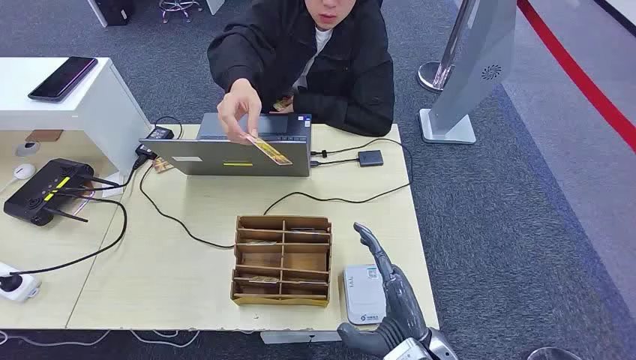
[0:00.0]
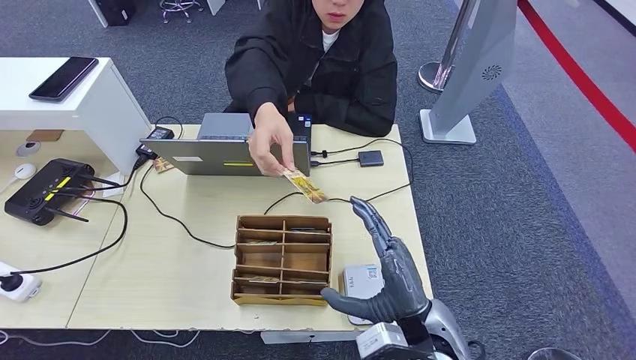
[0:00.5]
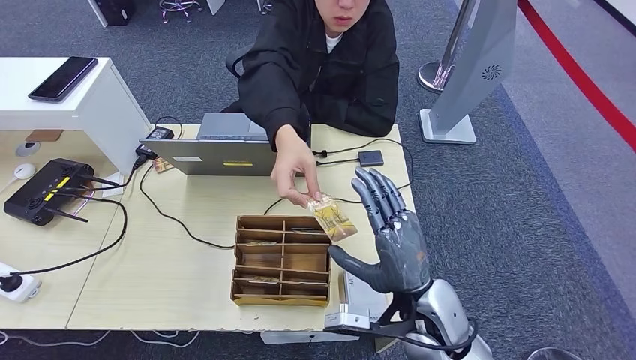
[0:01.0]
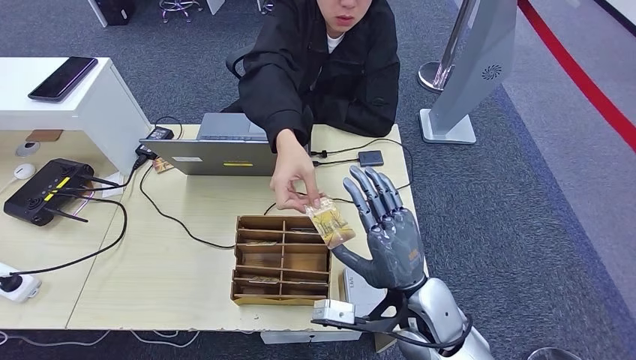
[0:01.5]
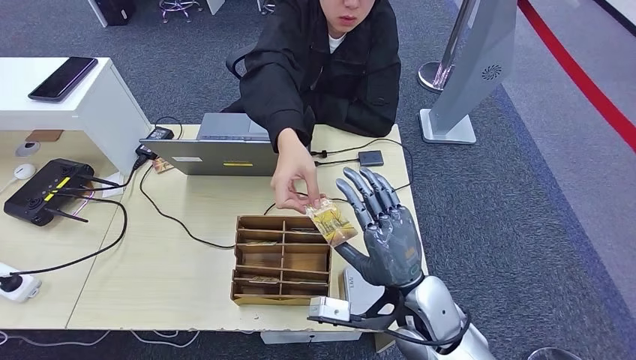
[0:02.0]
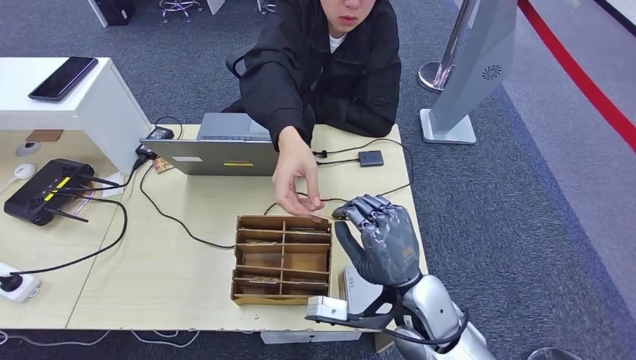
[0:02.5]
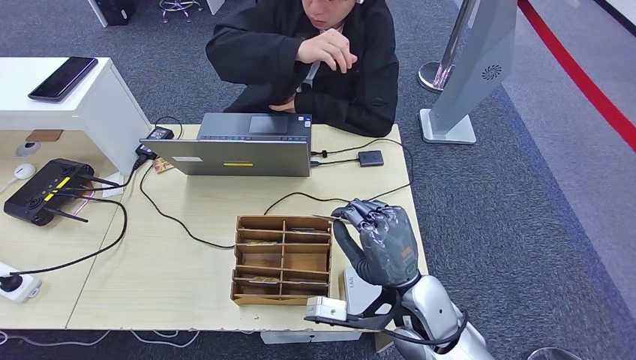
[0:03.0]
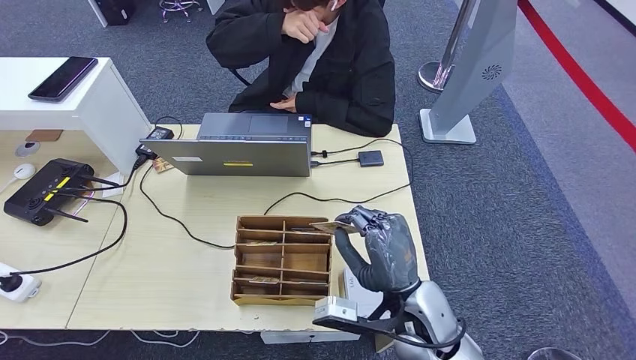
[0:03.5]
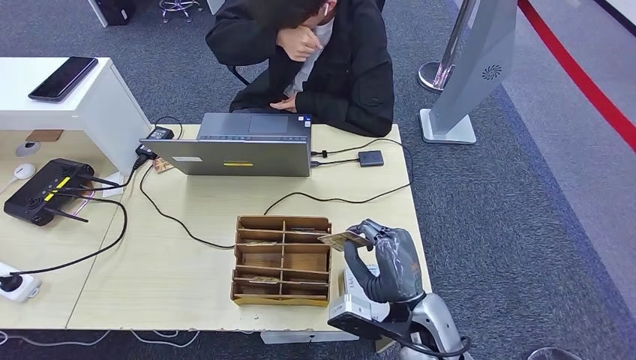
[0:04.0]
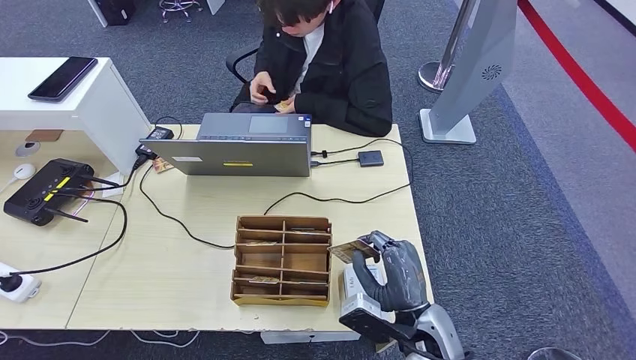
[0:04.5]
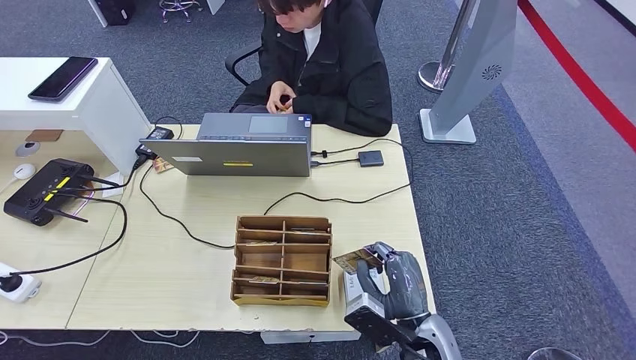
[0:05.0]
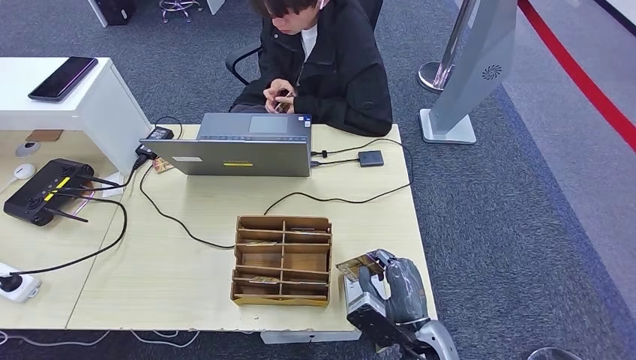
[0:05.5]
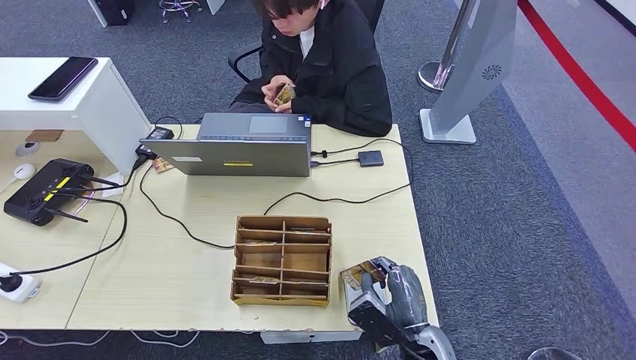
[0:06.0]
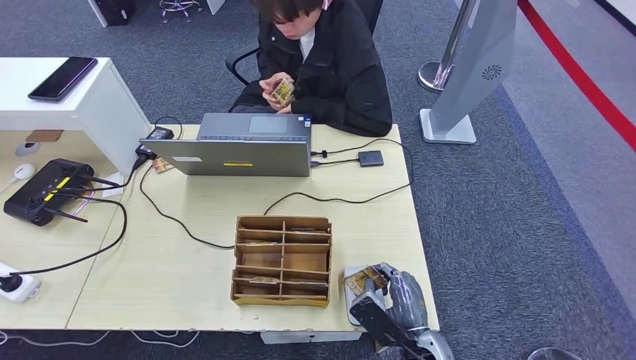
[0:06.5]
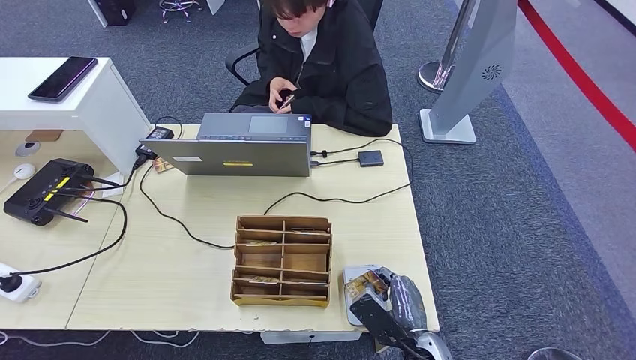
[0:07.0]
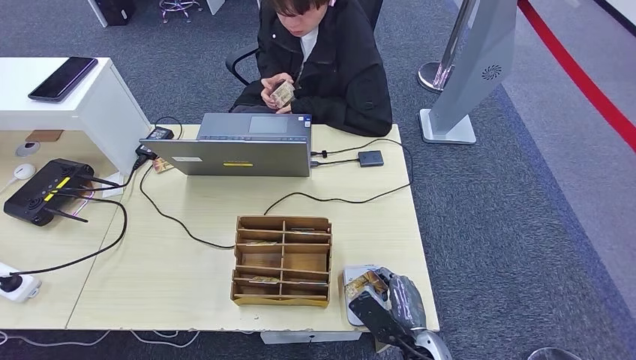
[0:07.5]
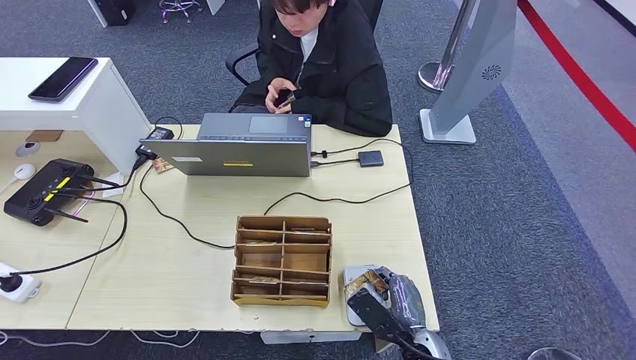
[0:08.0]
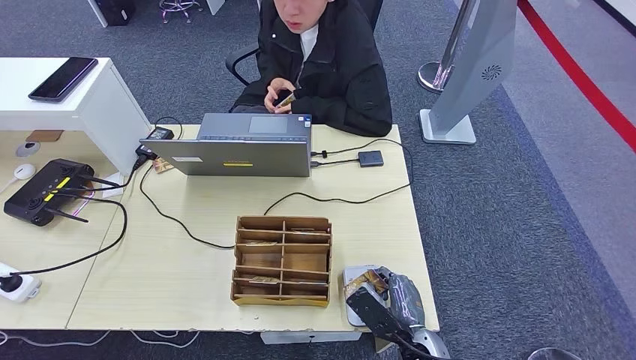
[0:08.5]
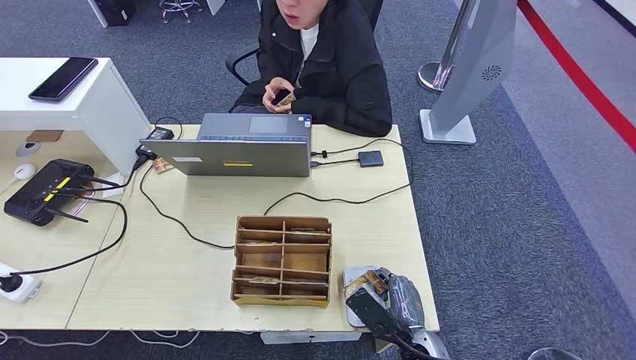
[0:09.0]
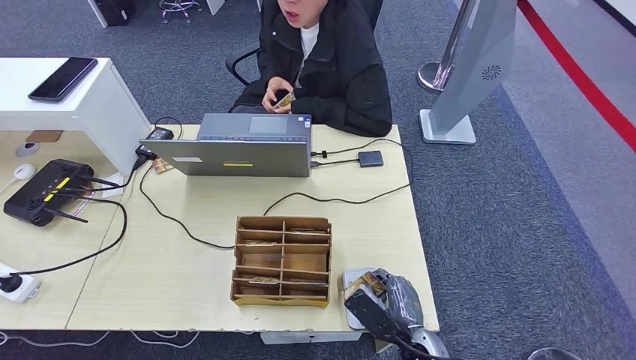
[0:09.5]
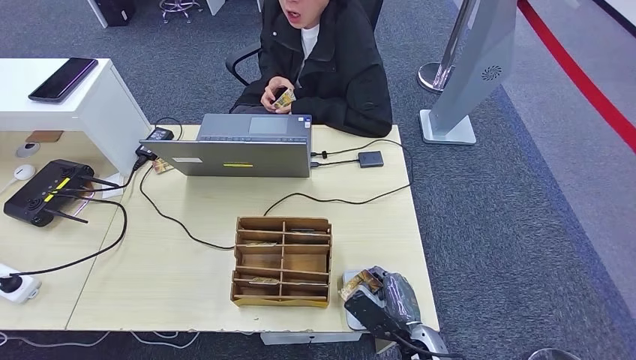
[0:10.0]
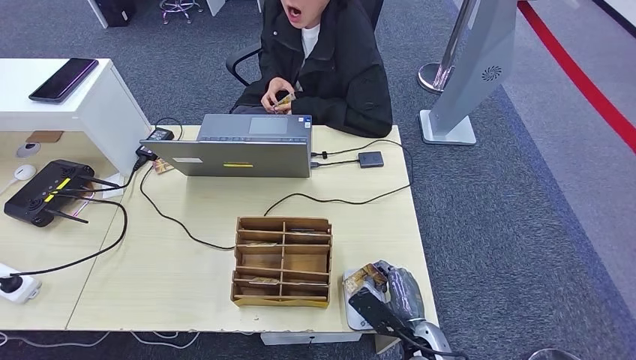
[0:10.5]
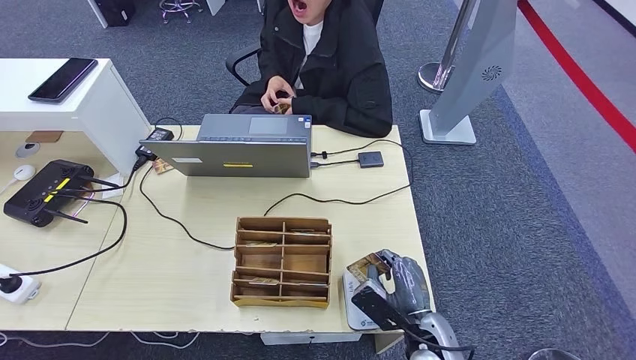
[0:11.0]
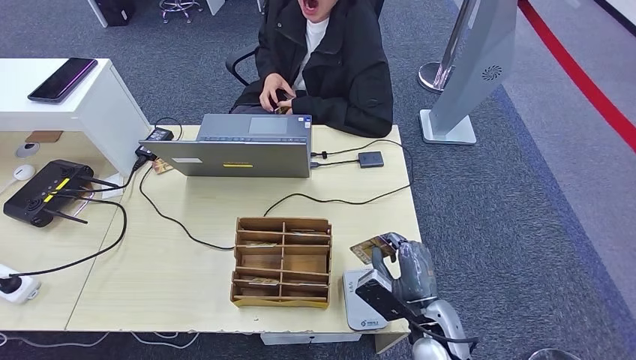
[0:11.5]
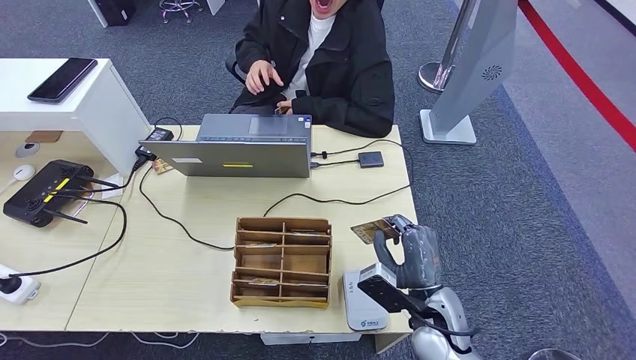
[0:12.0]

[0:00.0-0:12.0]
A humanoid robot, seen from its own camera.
Step, 0:00.0 to 0:04.0: Take the ID card from the person's hand.
Step, 0:04.5 to 0:05.5: Place the ID card on the card reader.
Step, 0:06.0 to 0:08.5: Hand the ID card to the person.
0:04.0 to 0:06.0: The right hand is displaced downward by approximately 5 cm.
0:06.0 to 0:08.0: The hands make only small movements.
0:08.0 to 0:10.0: The left hand moves backward and to the left, approximately 10 cm.
0:10.0 to 0:12.0: The right hand is displaced upward by some 5 cm.

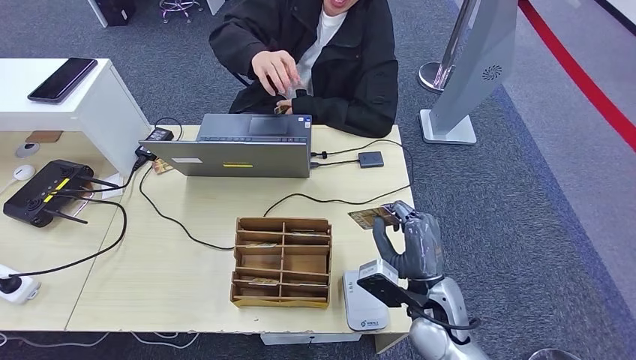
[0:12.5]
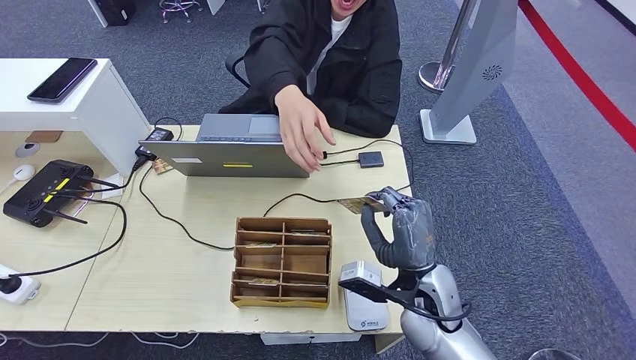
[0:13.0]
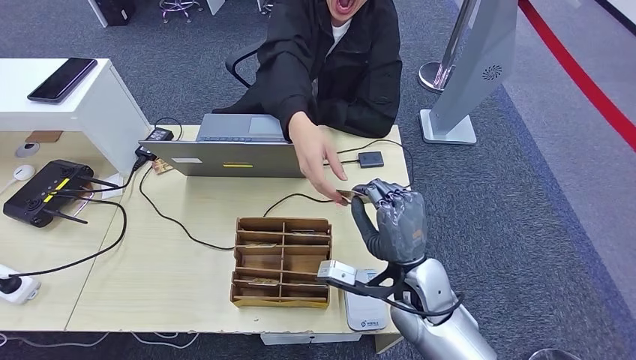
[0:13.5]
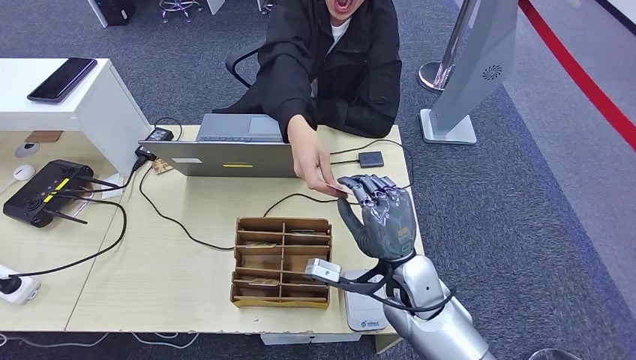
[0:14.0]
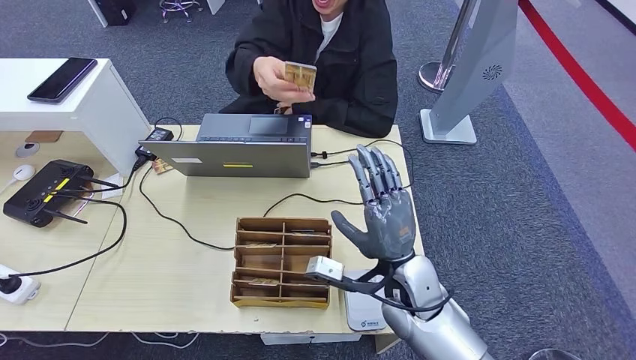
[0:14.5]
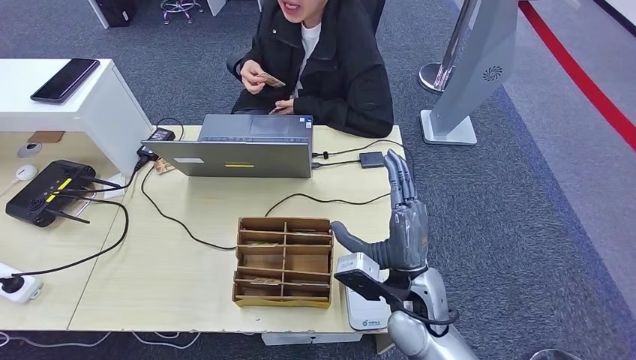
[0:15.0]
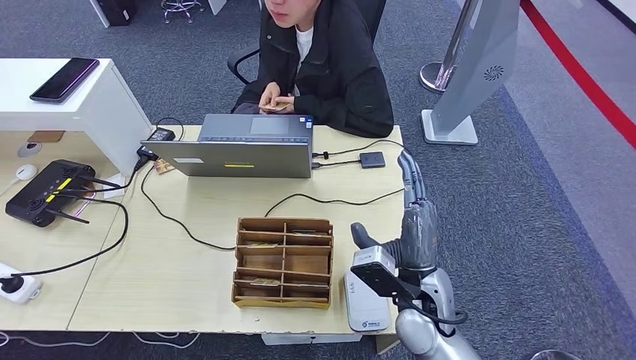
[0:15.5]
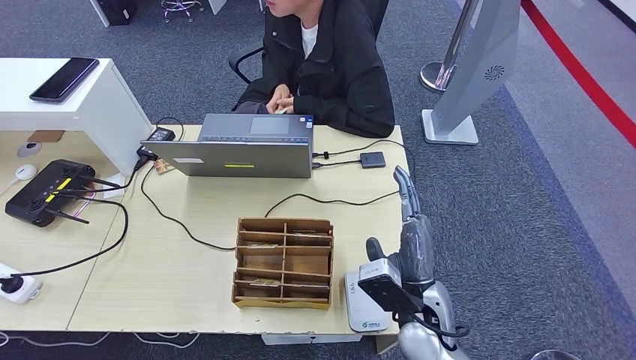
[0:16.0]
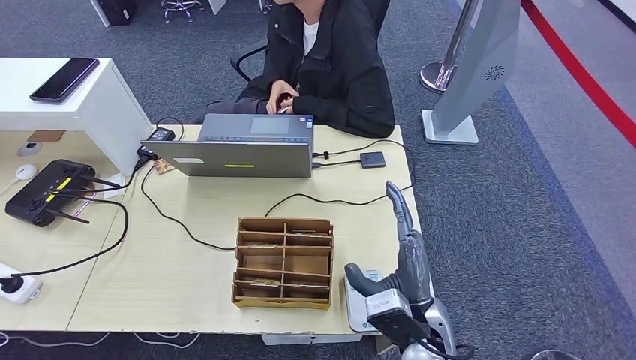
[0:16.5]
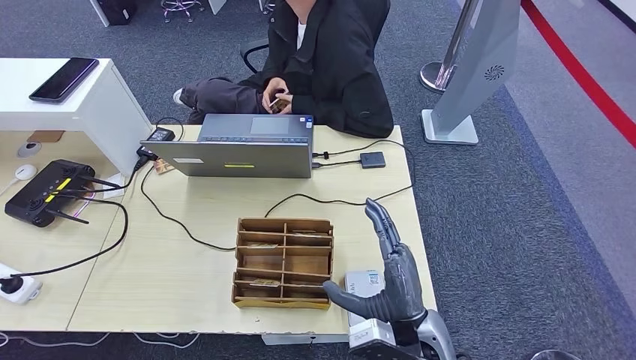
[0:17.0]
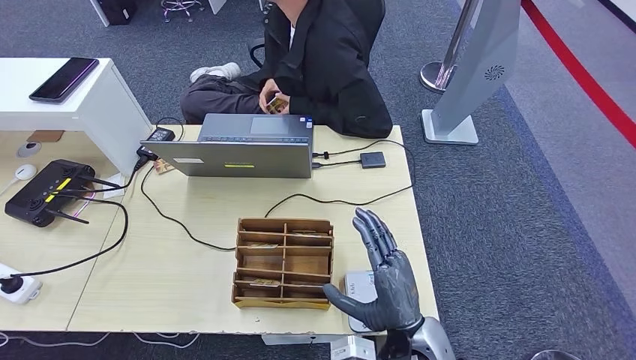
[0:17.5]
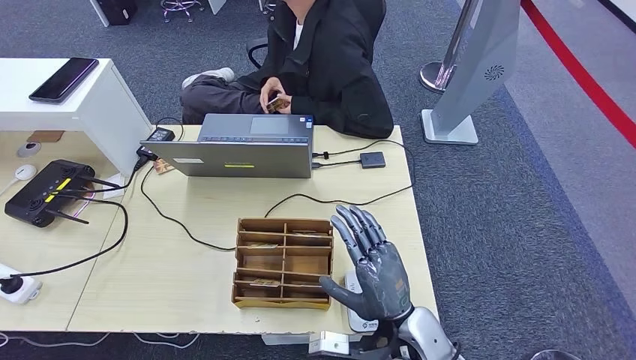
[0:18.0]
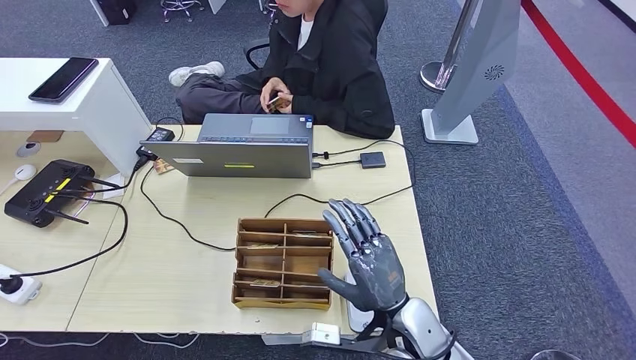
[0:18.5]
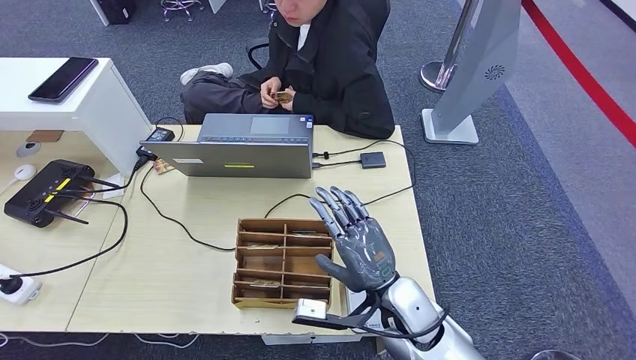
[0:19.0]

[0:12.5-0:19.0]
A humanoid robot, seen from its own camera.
Step, 0:12.5 to 0:14.5: Pick up the room key from the key card box.
Step, 0:15.0 to 0:19.0: Hand the room key to the person.
0:12.5 to 0:14.5: The right hand shifts by roughly 5 cm.
0:14.5 to 0:17.0: The right hand travels backward by about 10 cm, while the left hand heads to the right and forward, covering some 15 cm.
0:17.0 to 0:19.0: The right hand goes approximately 5 cm forward.
